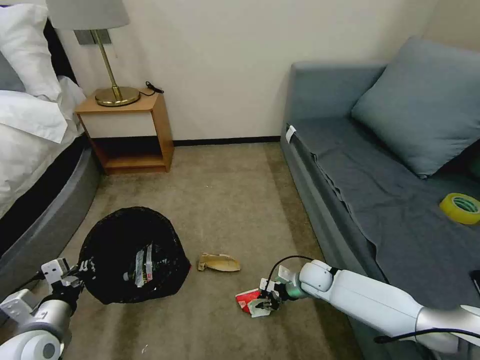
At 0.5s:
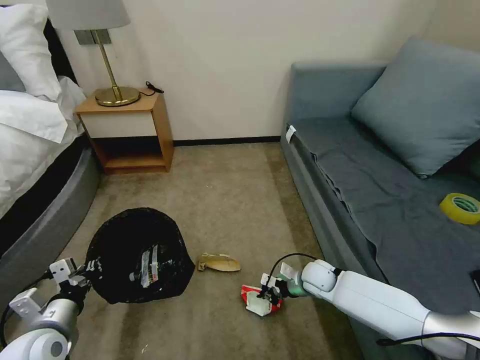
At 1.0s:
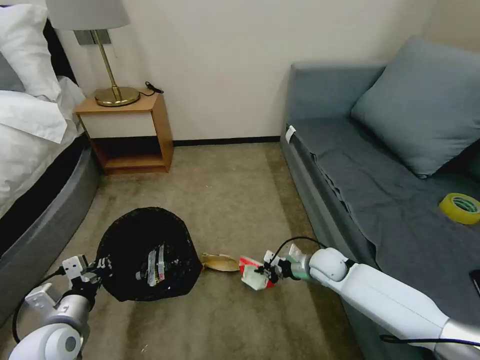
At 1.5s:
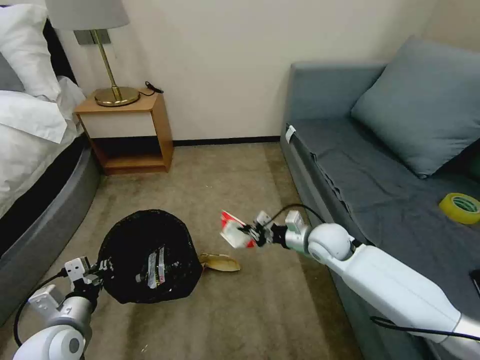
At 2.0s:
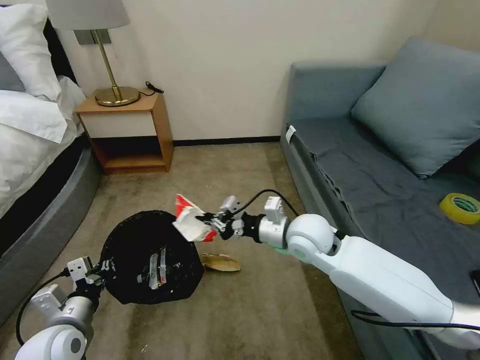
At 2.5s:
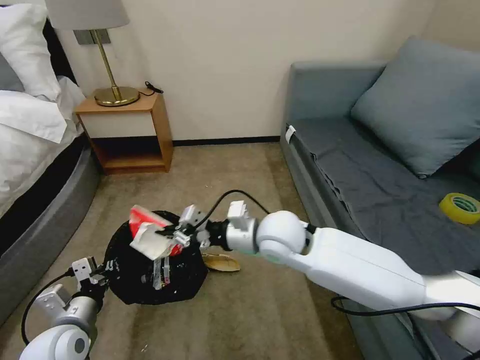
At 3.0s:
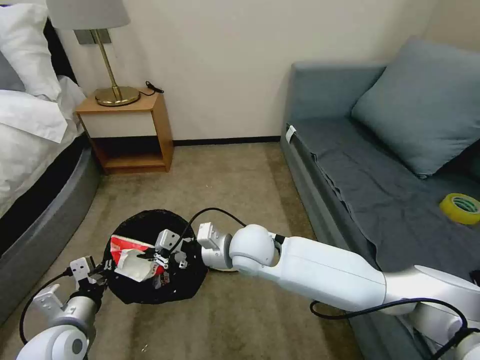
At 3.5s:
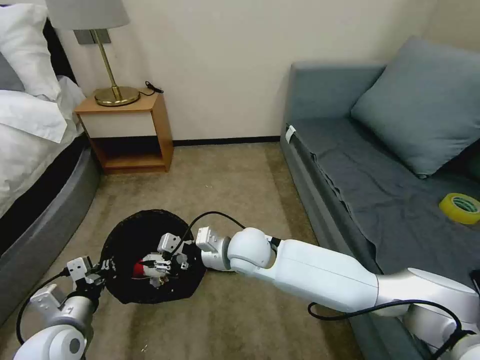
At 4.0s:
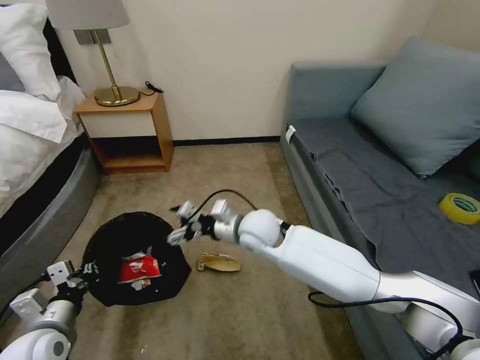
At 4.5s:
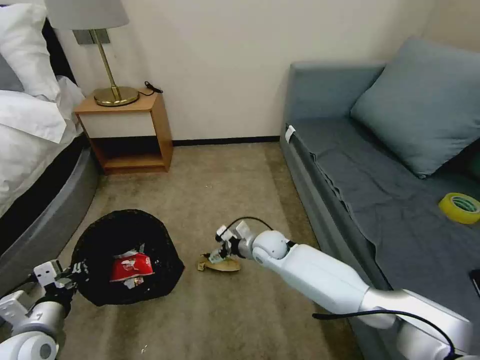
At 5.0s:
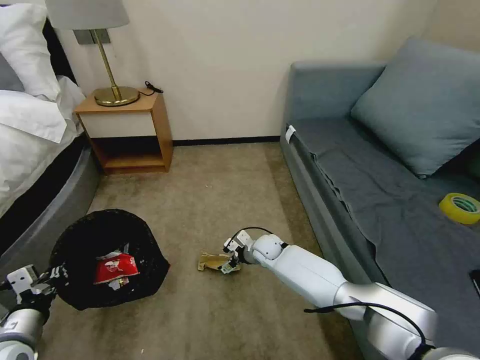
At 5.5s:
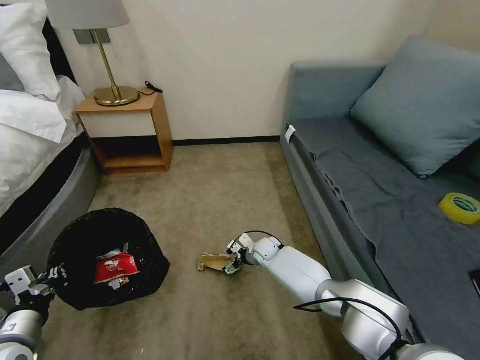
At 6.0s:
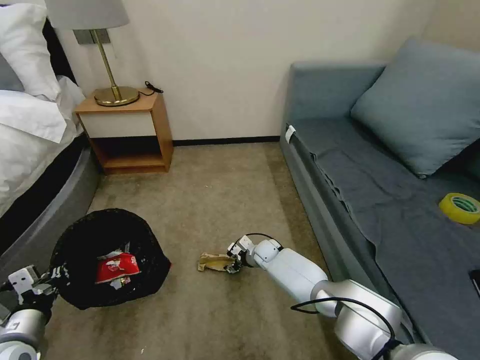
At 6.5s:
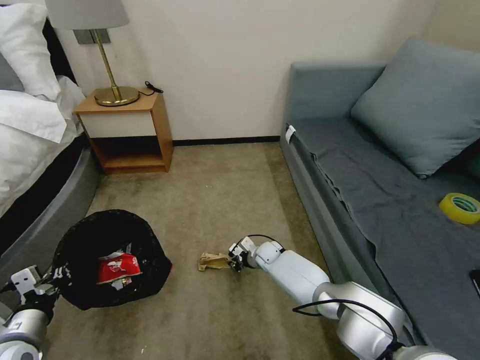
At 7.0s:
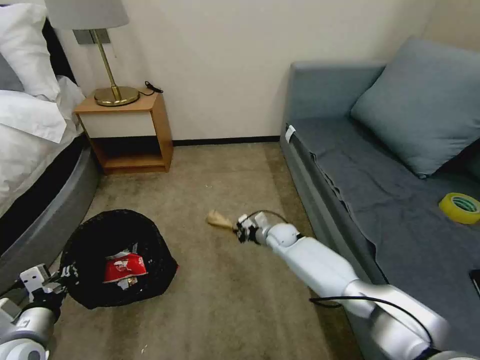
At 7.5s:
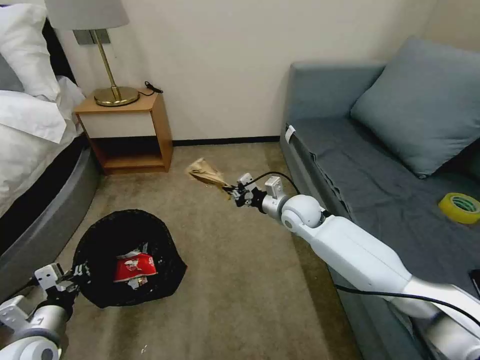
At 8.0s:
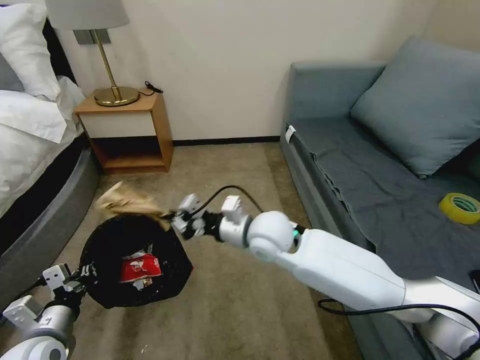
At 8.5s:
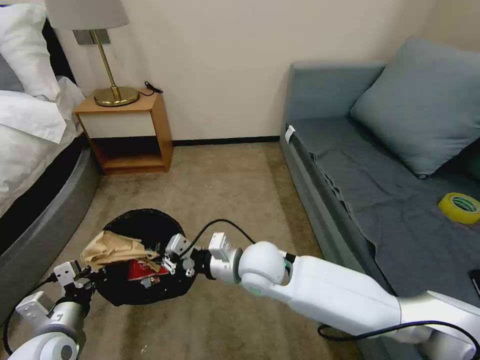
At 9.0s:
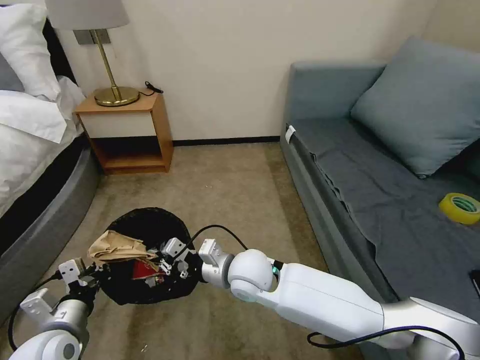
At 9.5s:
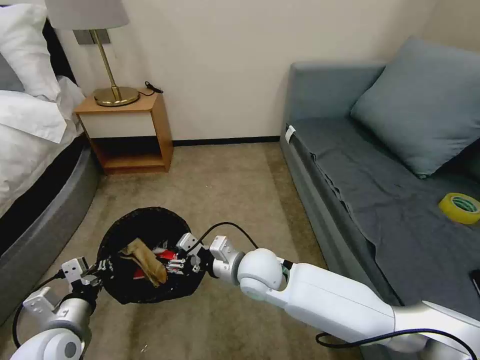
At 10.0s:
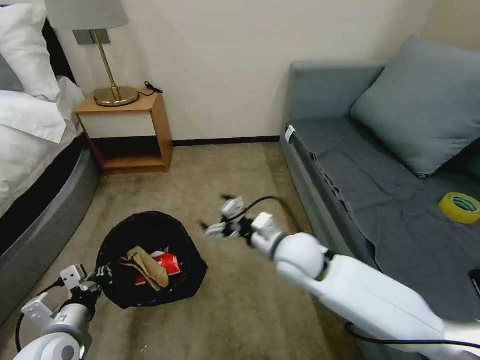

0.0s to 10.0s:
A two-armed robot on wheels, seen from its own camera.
Task of the whole recording: Pick up the trash bin, then pick up the garbage on the floor and place it into the trash bin.
0.0s to 2.0s: The right gripper shifts roughly 25 cm upward.
2.0s to 4.0s: The right gripper moves to the left, roughly 10 cm, and opens its fingers.
4.0s to 6.0s: The right gripper goes approximately 25 cm downward.
6.0s to 8.0s: The right gripper goes roughly 30 cm upward and backward, and closes its fingers.
8.0s to 10.0s: The right gripper changes place by some 5 cm, and opens its fingers.

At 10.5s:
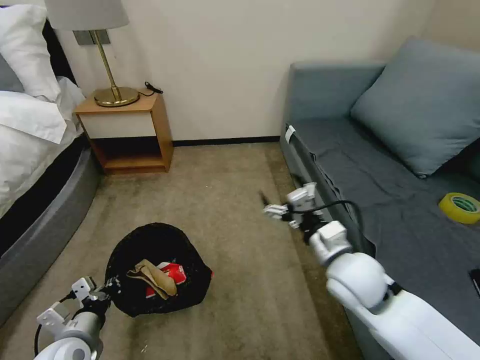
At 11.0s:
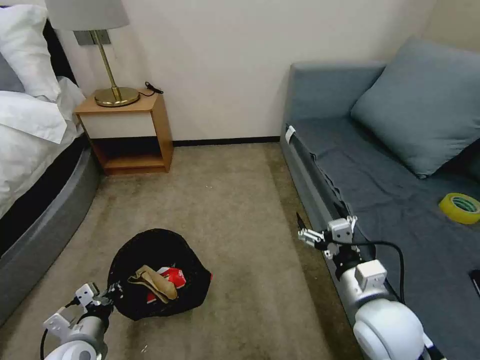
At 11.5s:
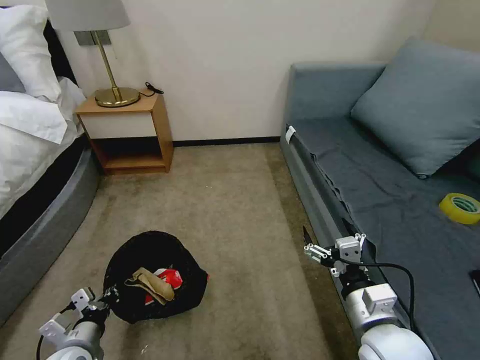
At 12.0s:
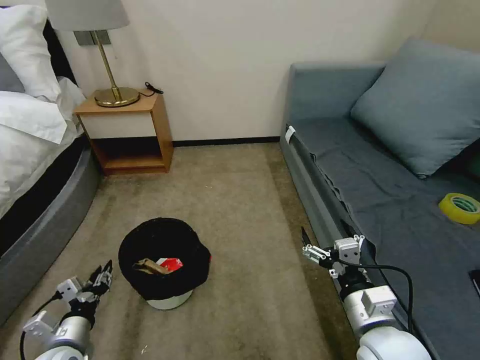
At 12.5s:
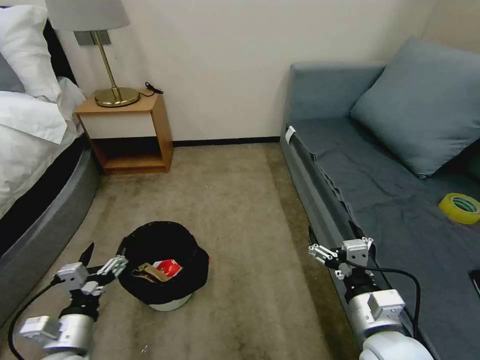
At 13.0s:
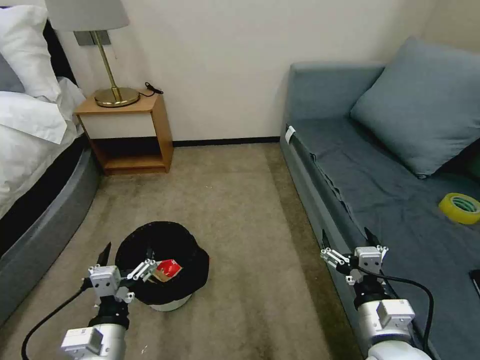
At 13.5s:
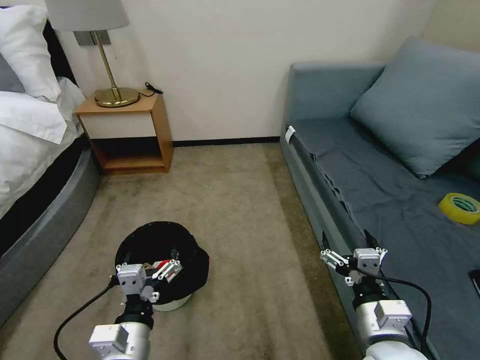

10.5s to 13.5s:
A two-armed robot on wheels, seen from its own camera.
Task of the whole recording: Pick up the trash bin, then pick up the garbage on the floor and place it into the trash bin.
10.5s to 12.0s: The right gripper travels backward by approximately 10 cm, while the left gripper opens its fingers.
12.0s to 13.5s: The left gripper goes approximately 20 cm to the right and upward, and opens its fingers.
